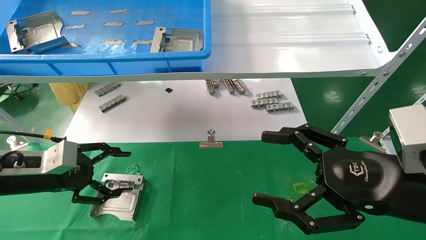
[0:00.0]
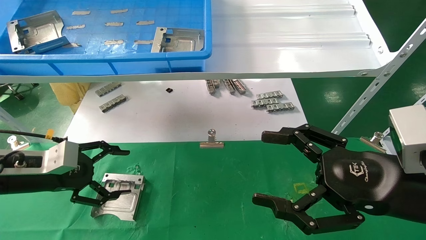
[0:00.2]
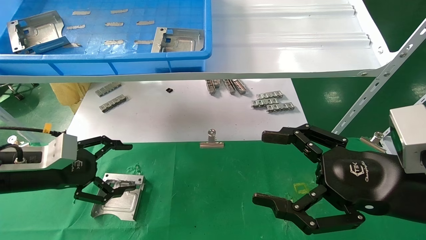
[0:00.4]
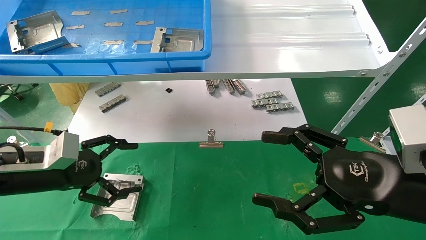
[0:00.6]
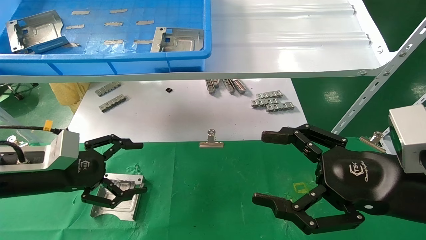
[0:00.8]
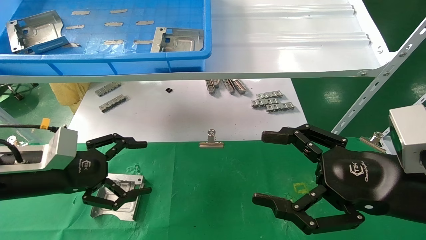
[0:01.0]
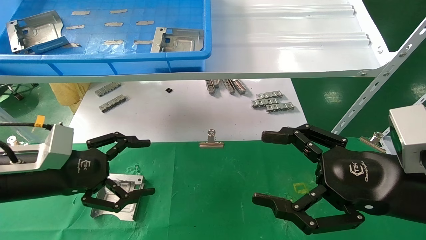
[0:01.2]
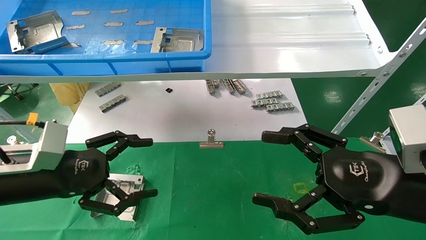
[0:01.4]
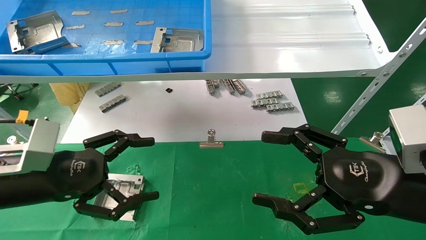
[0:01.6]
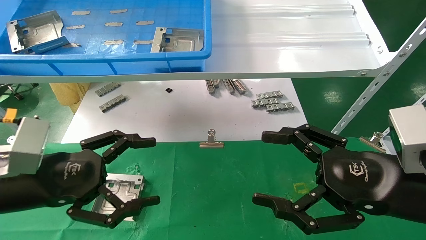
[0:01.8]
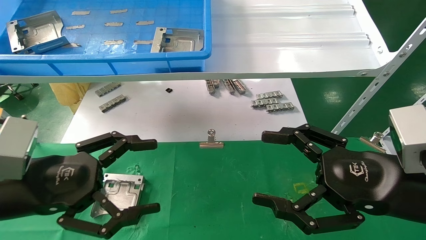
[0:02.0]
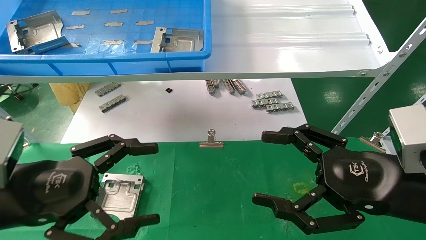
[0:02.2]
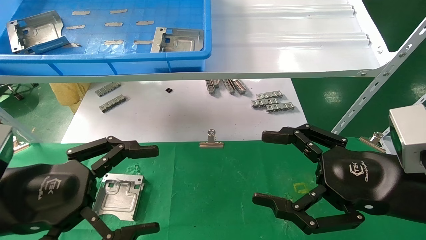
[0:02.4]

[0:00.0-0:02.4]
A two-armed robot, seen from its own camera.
Task of the whole recording: use the mechanical arm to pick up the parts and place them on the table.
0:00.0 to 0:01.2: The left gripper travels to the right by roughly 5 cm, and opens.
0:01.2 to 0:02.4: The left gripper heads backward, covering about 10 cm.

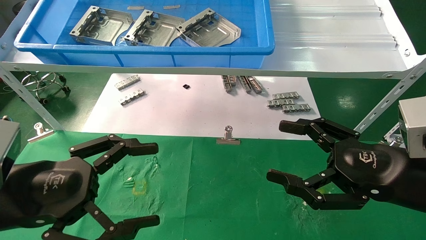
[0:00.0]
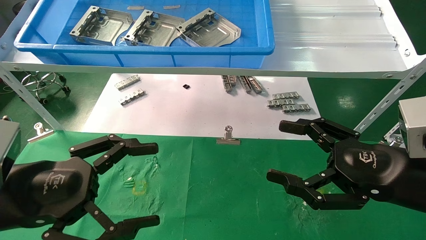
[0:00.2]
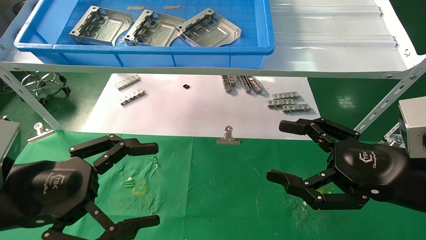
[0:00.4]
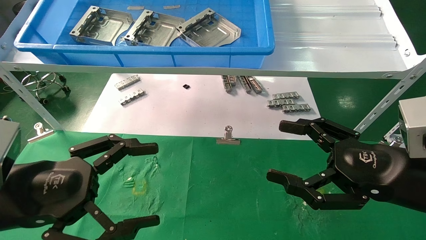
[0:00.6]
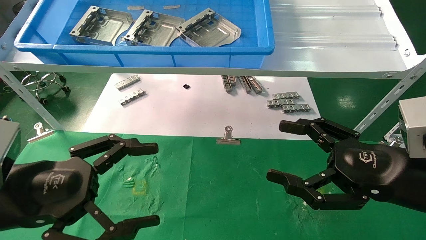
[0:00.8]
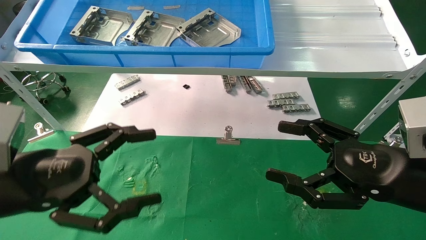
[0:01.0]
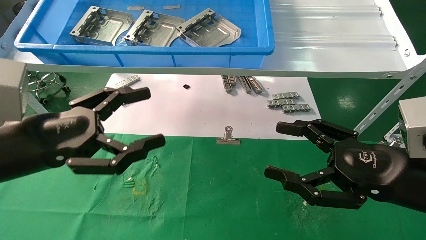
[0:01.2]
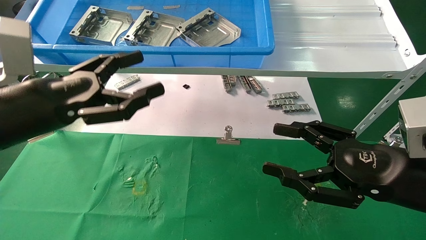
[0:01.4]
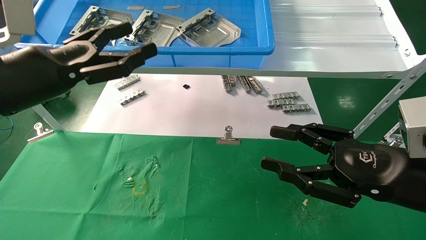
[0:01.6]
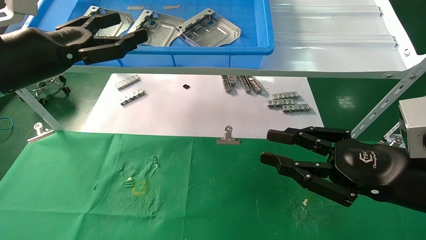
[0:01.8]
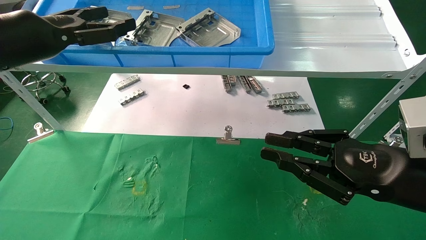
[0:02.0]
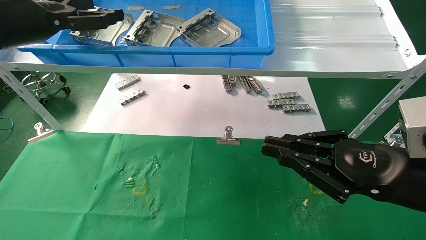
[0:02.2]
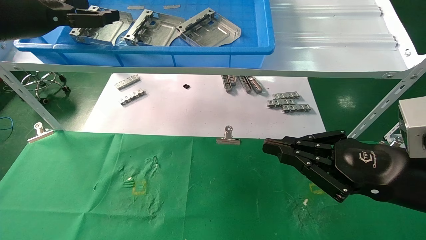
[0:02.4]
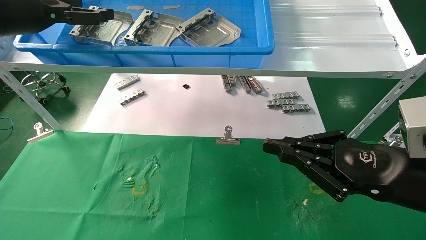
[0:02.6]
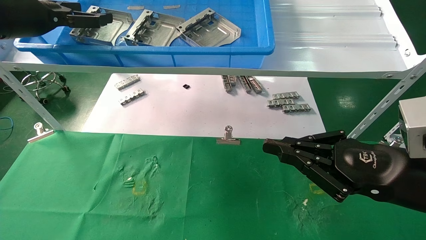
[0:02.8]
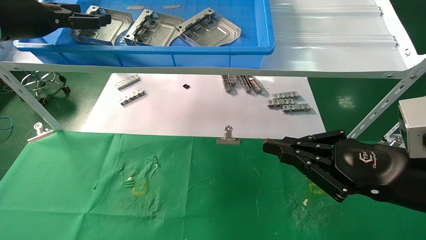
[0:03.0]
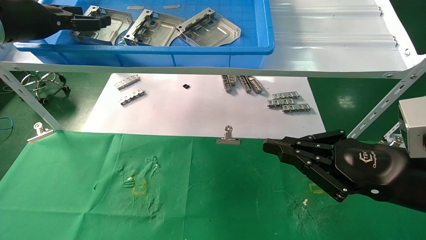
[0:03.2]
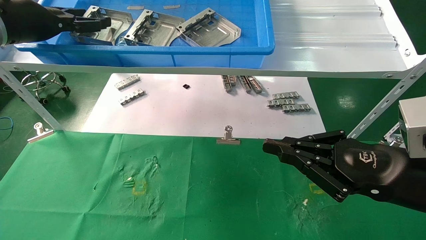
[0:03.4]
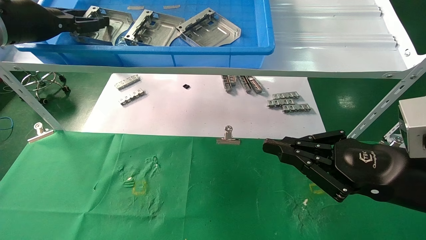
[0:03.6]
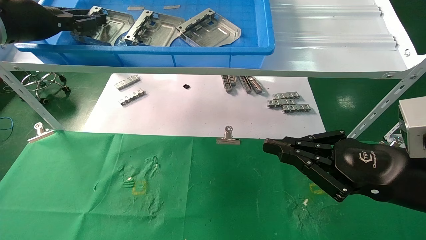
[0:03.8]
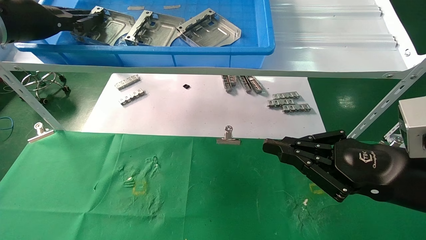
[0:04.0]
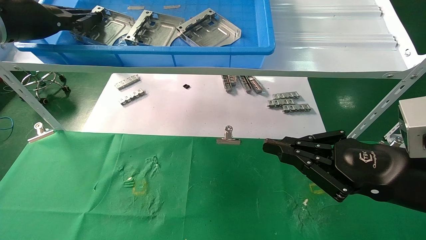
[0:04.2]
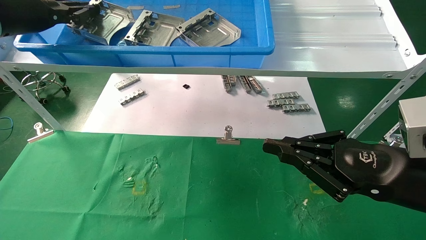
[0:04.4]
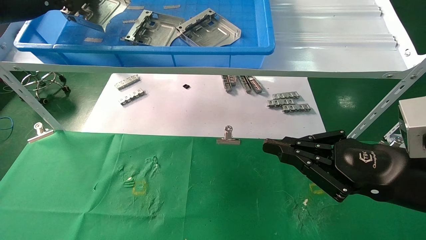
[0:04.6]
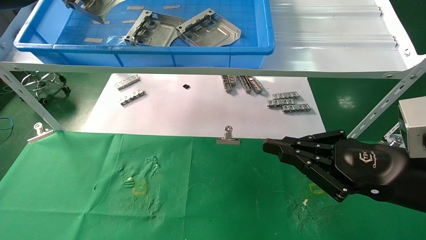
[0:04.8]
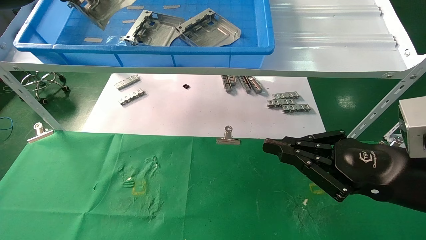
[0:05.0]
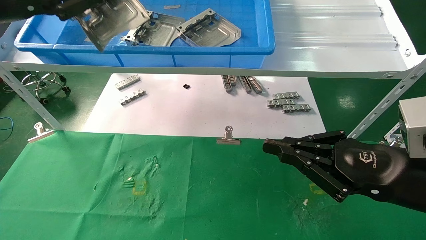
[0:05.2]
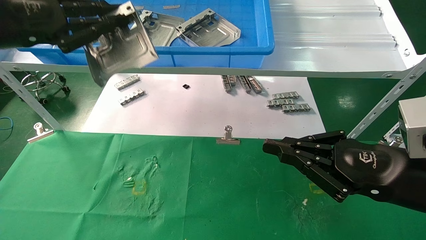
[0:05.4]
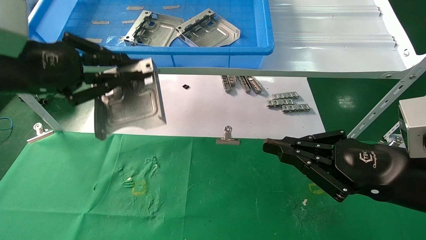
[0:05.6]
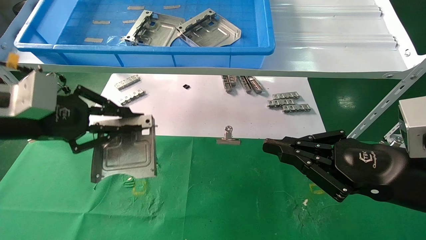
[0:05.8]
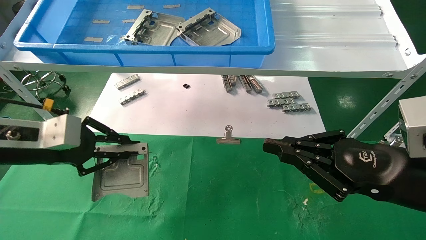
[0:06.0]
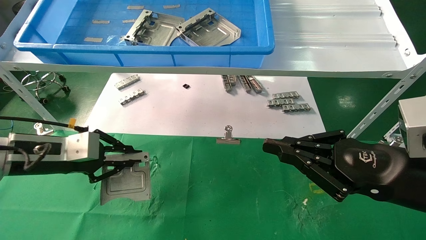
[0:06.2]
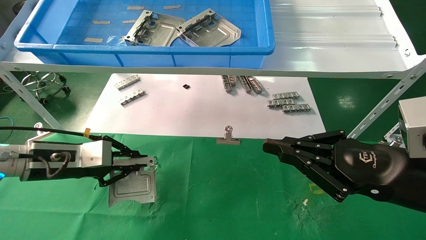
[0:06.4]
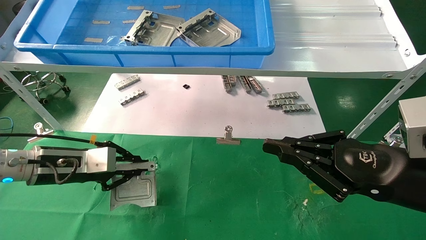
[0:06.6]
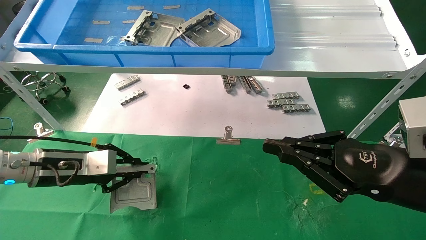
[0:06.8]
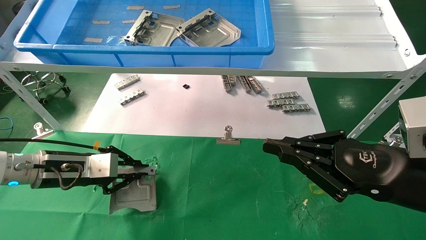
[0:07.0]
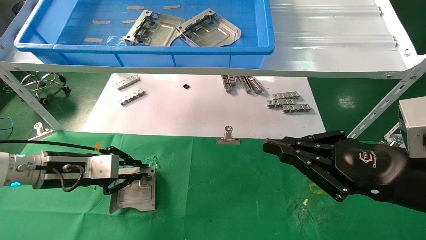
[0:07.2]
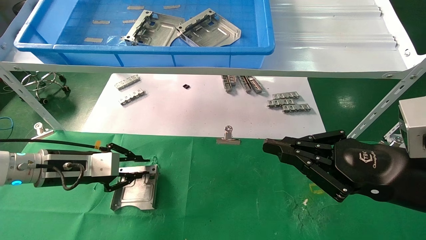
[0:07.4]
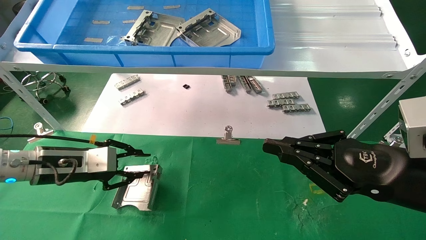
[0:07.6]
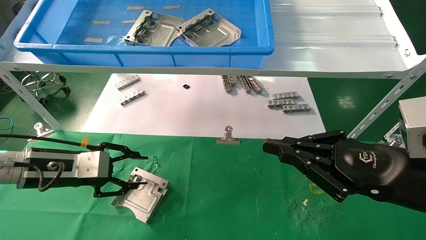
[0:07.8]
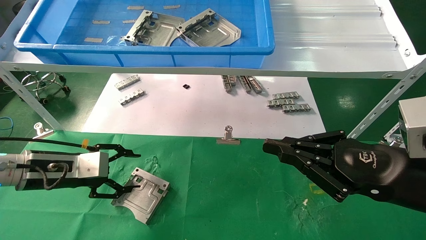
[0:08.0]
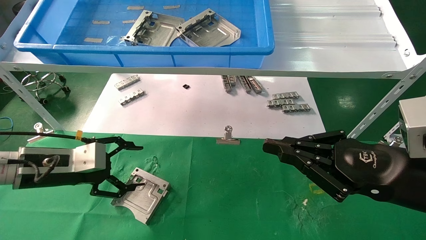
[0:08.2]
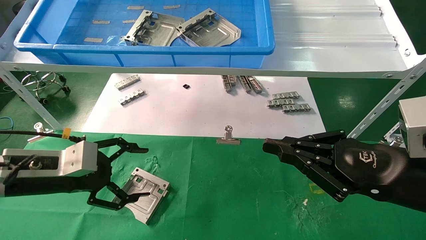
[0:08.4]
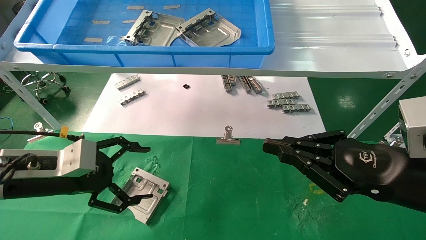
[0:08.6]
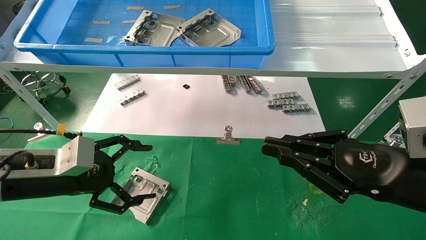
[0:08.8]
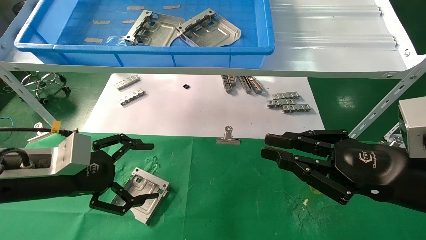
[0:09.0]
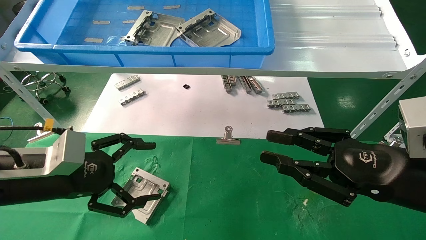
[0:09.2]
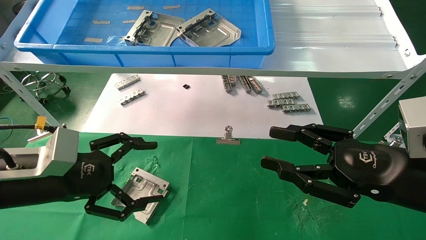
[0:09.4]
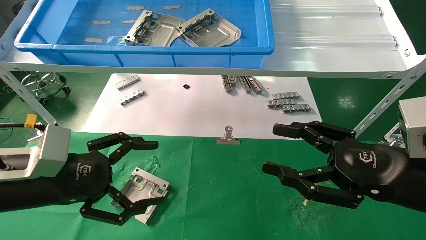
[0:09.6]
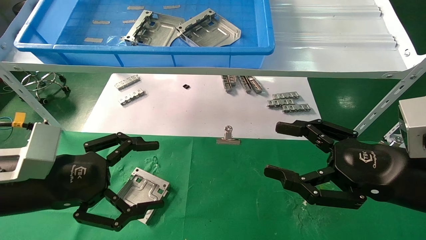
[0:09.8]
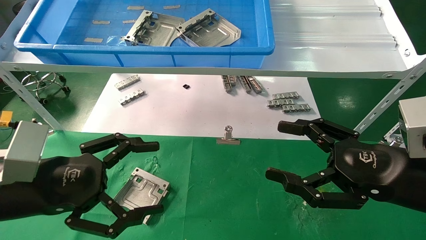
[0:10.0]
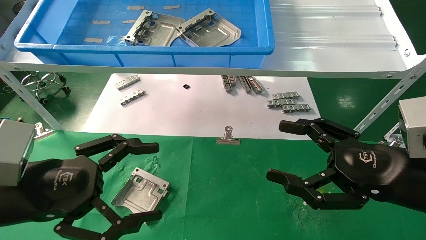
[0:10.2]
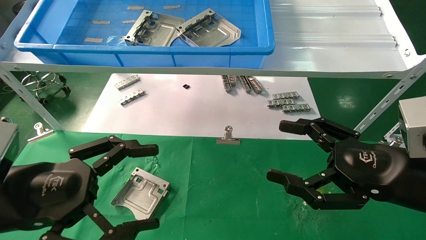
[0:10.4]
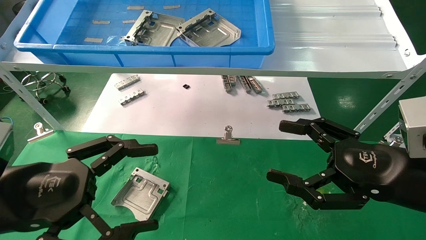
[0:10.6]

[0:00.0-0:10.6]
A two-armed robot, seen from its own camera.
Task of the whole recording: use the mechanical arm to pick up the parts and place them on the table.
Step, 0:01.2 to 0:04.0: Pick up the hard drive bracket from the feeding area.
Step, 0:04.2 to 0:07.4: Place the hard drive bracket into the box.
0:00.0 to 0:01.6: The left gripper shifts roughly 15 cm upward and forward.
0:01.6 to 0:03.0: The left gripper travels upward, forward and to the left by some 15 cm. The right gripper closes its fingers.
0:03.0 to 0:04.6: The left gripper closes.
0:04.6 to 0:06.0: The left gripper shifts some 20 cm downward.
0:06.0 to 0:07.6: The left gripper shifts about 10 cm downward.
0:07.6 to 0:09.0: The left gripper heads backward, covering about 5 cm, and opens.
0:09.0 to 0:10.6: The right gripper opens up. Meanwhile the left gripper travels backward by approximately 10 cm.
